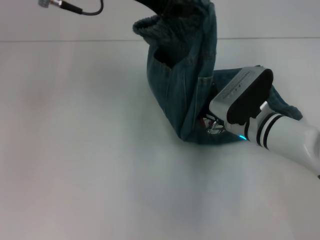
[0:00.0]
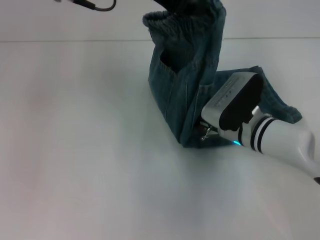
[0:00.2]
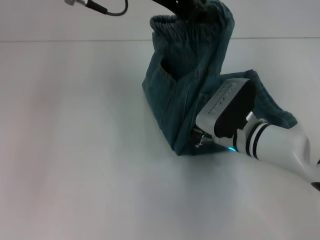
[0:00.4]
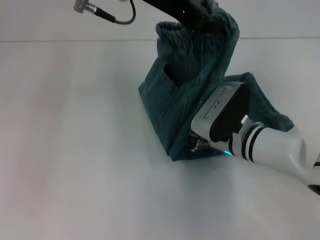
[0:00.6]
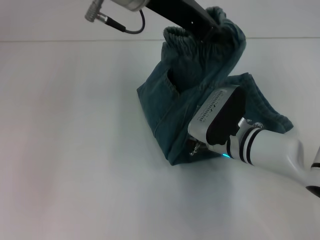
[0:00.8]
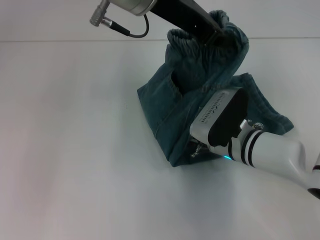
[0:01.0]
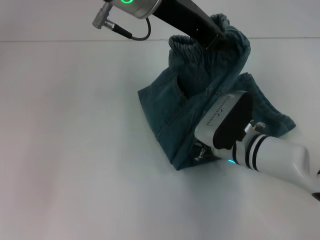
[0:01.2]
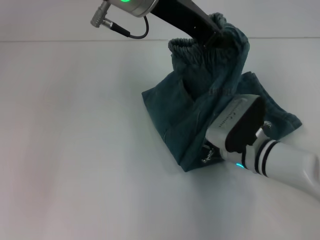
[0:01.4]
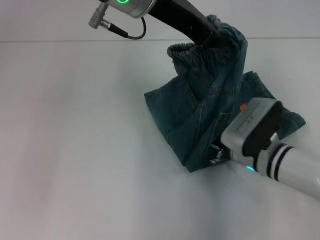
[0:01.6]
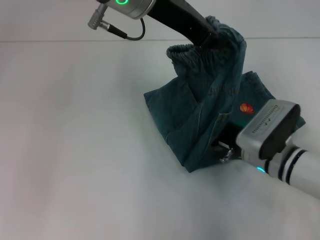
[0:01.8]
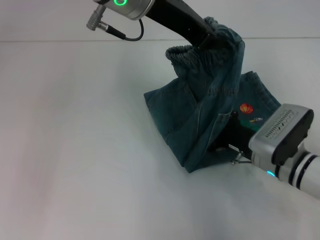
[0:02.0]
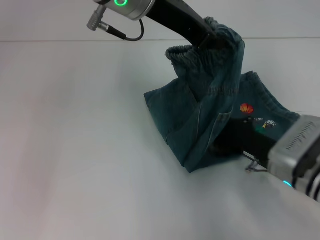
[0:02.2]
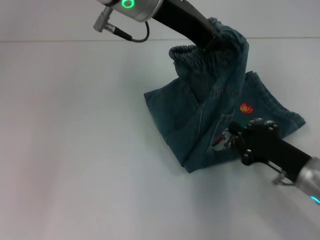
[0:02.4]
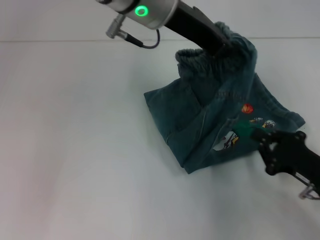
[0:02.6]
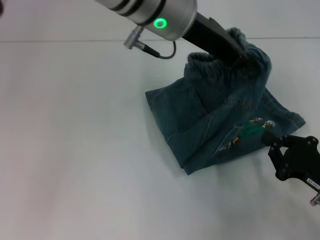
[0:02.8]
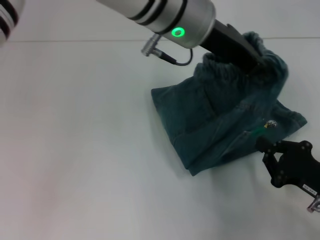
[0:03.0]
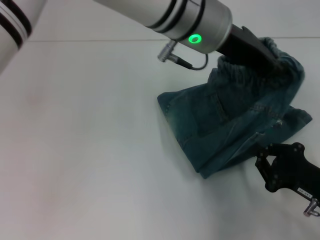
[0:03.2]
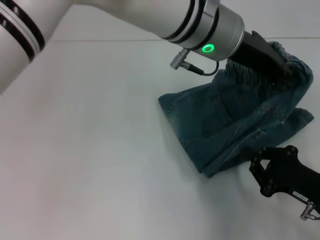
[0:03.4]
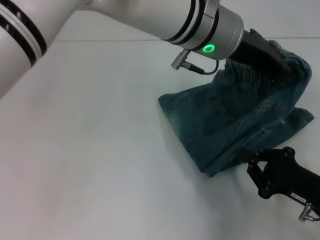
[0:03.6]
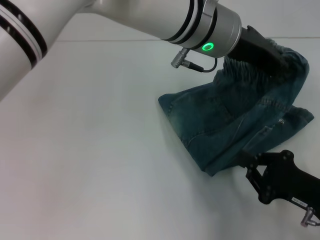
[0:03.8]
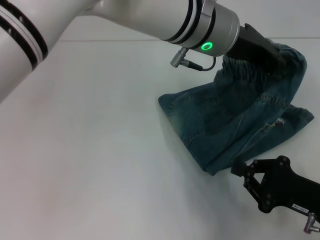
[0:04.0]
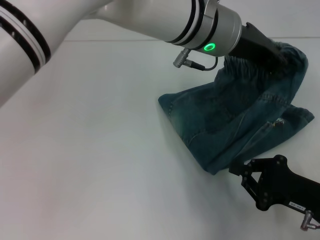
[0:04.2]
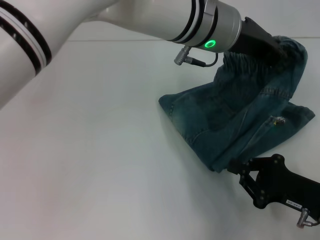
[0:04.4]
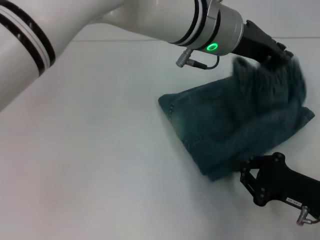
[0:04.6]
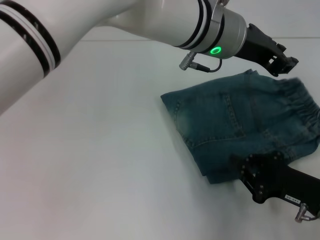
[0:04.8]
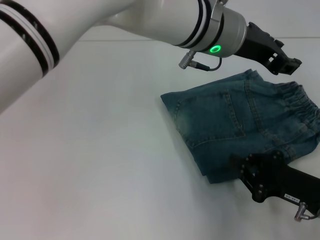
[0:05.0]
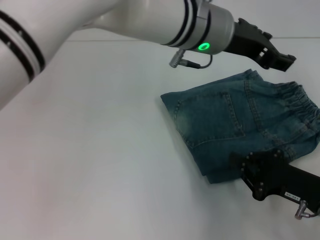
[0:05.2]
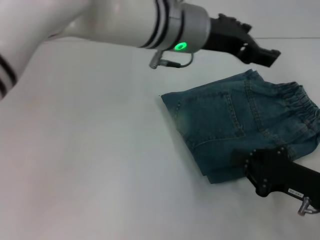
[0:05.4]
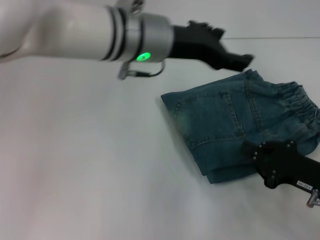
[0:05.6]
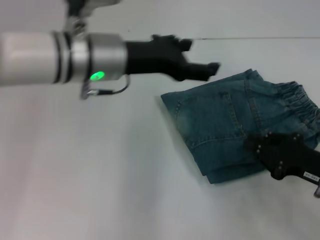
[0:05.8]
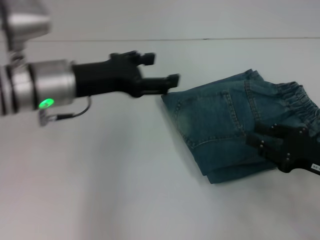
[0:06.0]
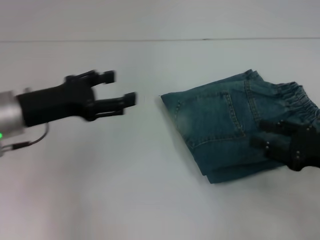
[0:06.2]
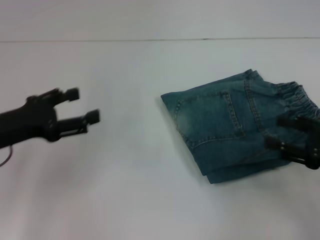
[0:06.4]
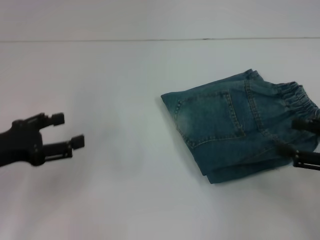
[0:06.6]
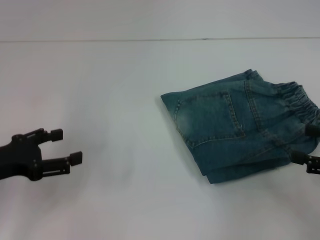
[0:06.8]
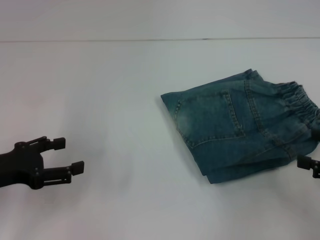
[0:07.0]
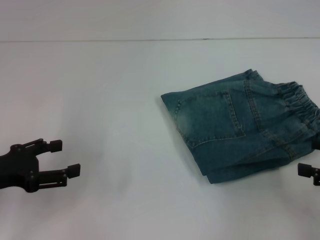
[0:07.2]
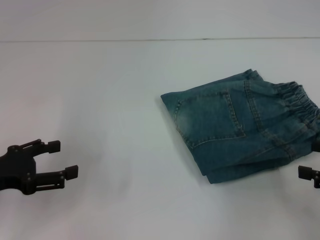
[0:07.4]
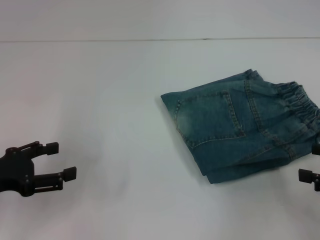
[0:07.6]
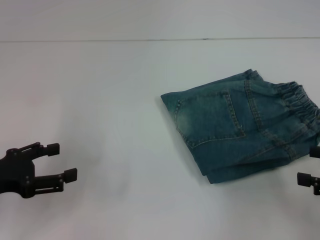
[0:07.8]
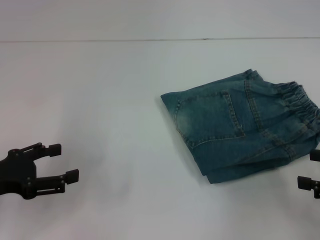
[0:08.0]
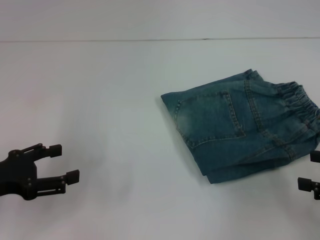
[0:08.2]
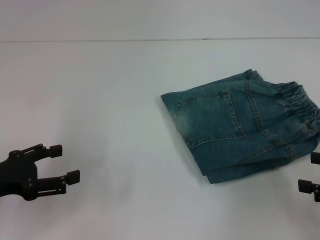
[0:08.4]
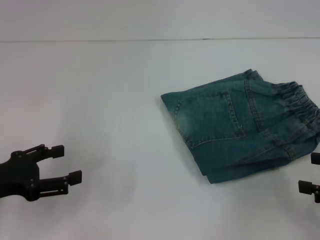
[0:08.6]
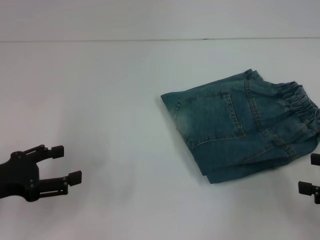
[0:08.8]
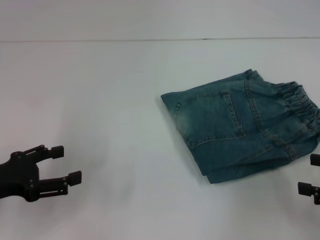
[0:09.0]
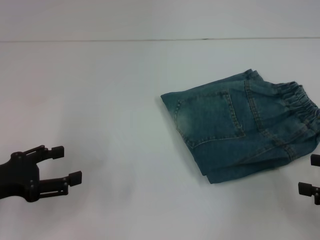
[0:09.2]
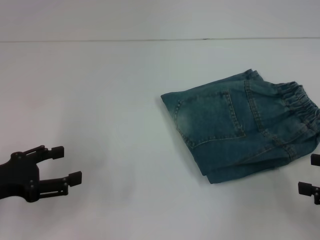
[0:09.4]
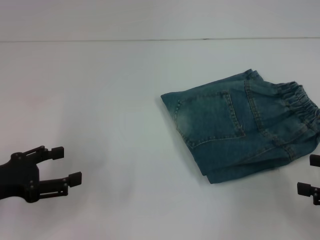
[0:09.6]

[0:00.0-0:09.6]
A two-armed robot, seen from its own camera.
Step, 0:02.0 to 0:05.2: Fold to the right with your left hand.
0:00.0 to 0:01.6: The left gripper is displaced to the right by approximately 5 cm.
0:01.6 to 0:03.2: The right gripper travels to the right and backward by about 15 cm. Meanwhile the left gripper shifts some 5 cm to the right.
0:04.8 to 0:06.4: The left gripper heads to the left, covering roughly 30 cm, and opens, while the right gripper is displaced upward and to the right by about 10 cm, and opens up.
0:06.4 to 0:08.0: The right gripper ends up roughly 5 cm from where it was; the left gripper shifts by about 5 cm.
0:08.0 to 0:09.6: Neither gripper changes place.
